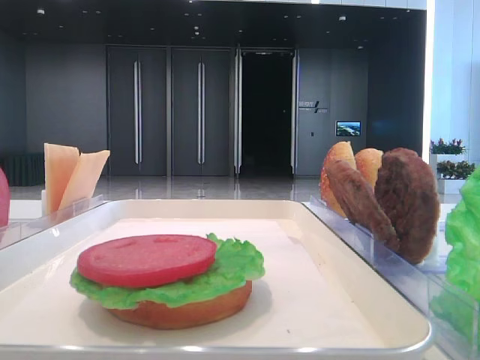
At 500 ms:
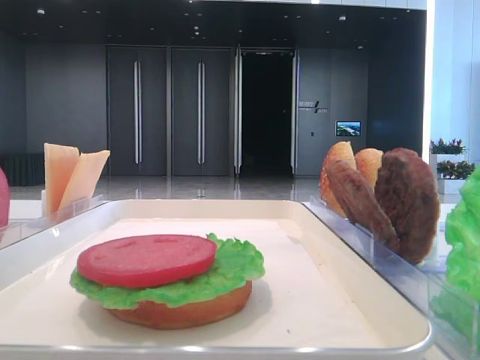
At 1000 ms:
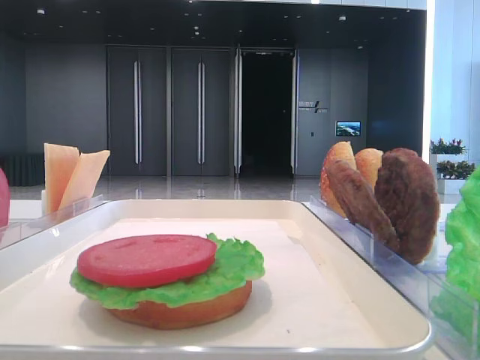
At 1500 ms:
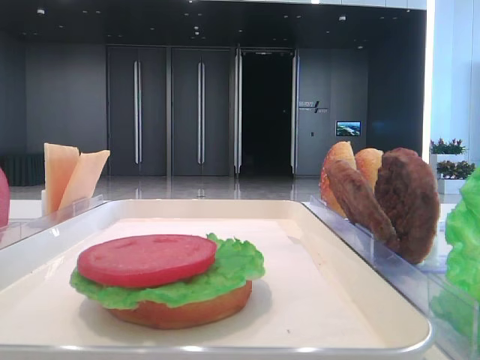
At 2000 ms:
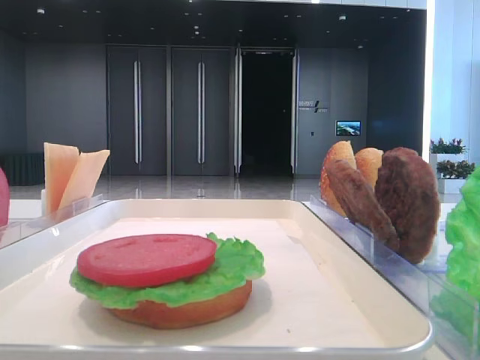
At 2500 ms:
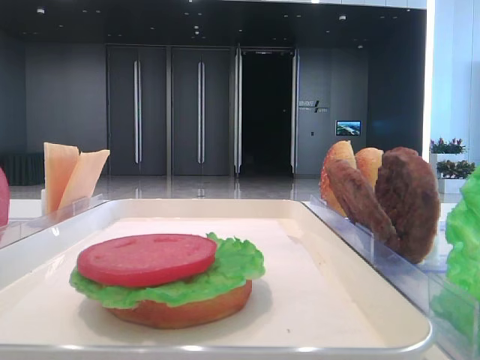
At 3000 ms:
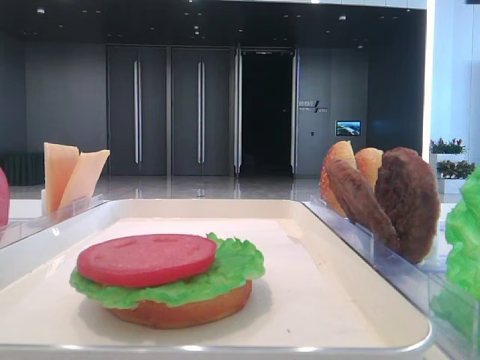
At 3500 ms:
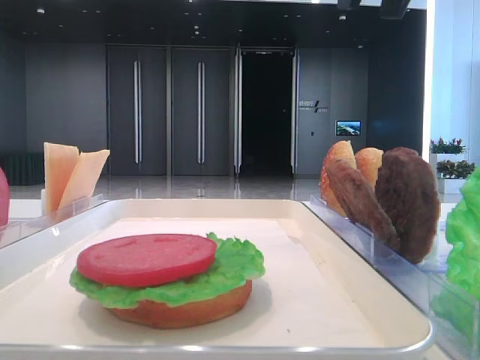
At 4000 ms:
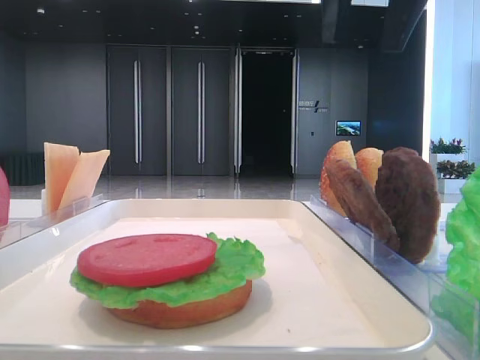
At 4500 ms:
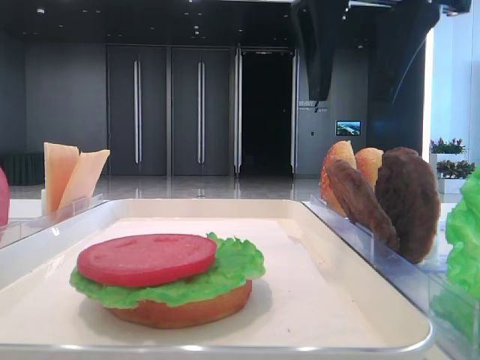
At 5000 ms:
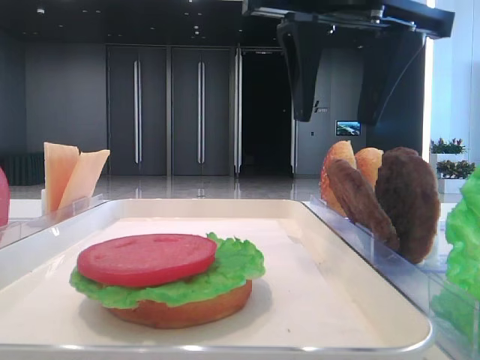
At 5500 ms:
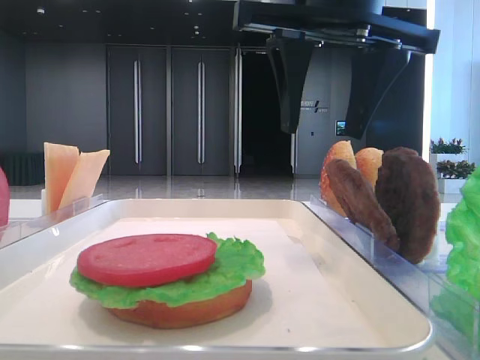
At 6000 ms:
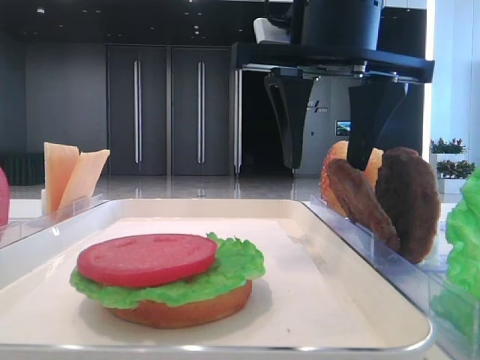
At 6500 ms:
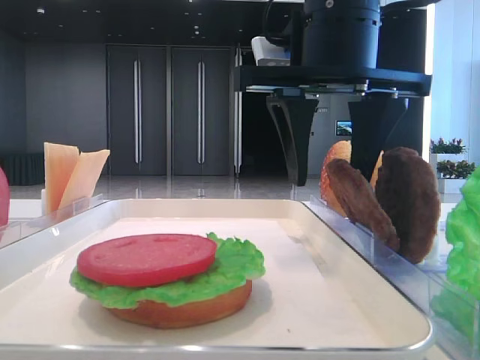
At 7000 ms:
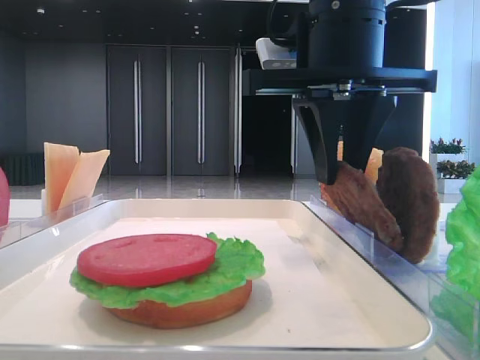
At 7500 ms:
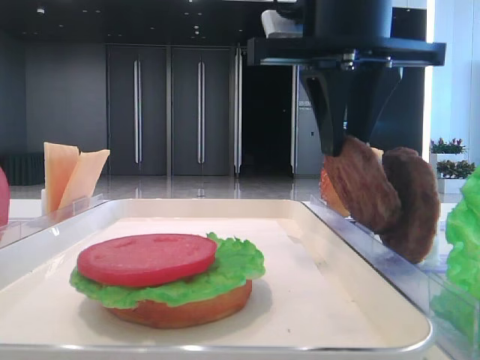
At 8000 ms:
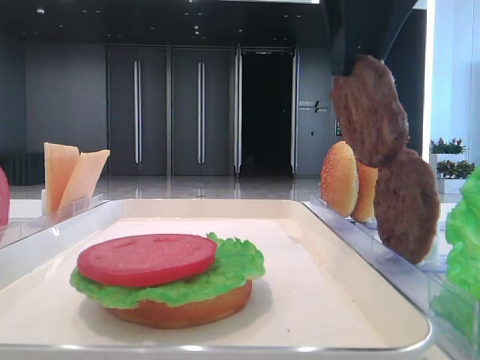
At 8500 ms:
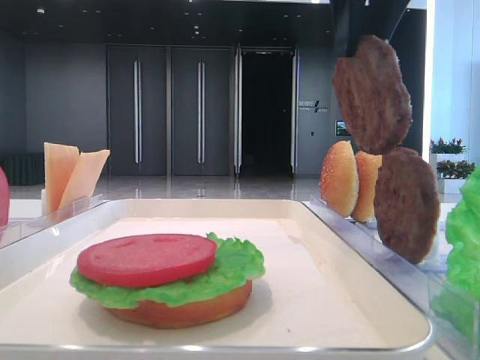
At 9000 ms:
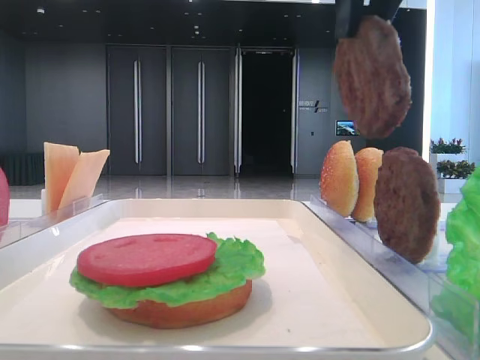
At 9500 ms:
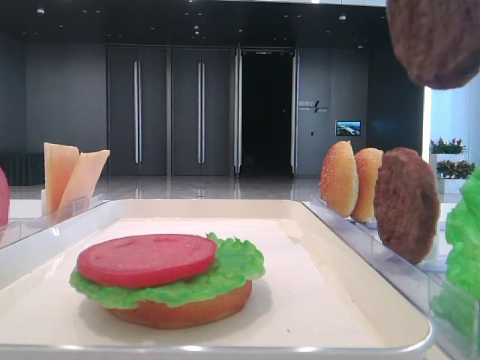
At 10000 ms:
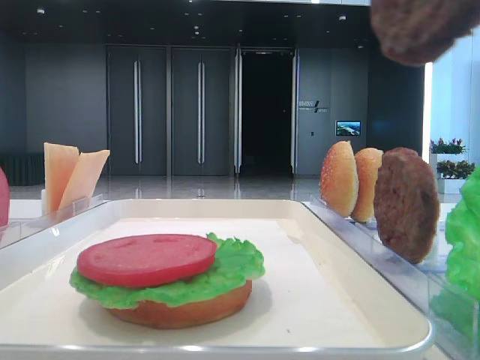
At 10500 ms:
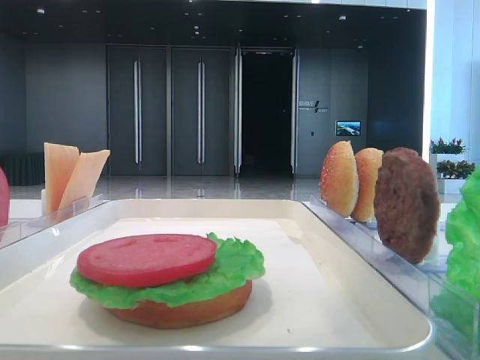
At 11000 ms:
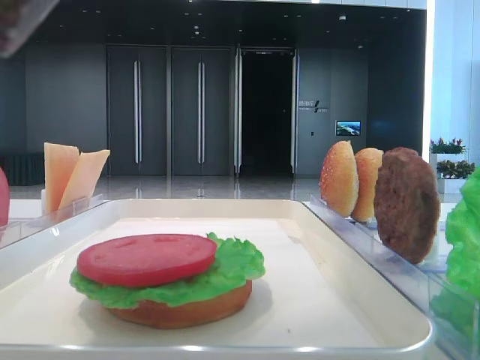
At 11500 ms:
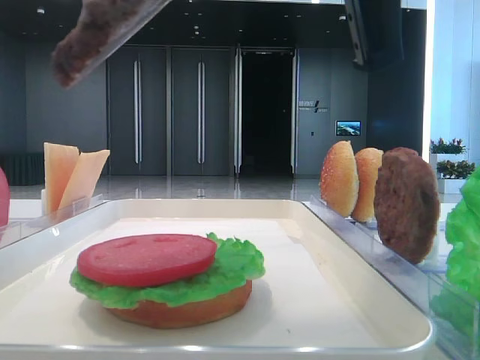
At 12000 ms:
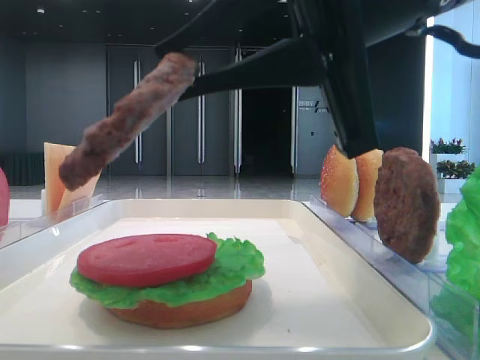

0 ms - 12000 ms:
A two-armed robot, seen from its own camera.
Step, 0 ms - 7000 ms: Grab the patty with the right hand.
4000 ms - 6000 ms: The right gripper travels downward by roughly 10 cm.
6000 ms - 8000 ms: The right gripper is displaced upward by about 5 cm, and closes up.
8000 ms - 10000 ms: The right gripper is displaced backward by roughly 15 cm.
10000 ms - 12000 ms: The right gripper shifts about 15 cm downward and forward.

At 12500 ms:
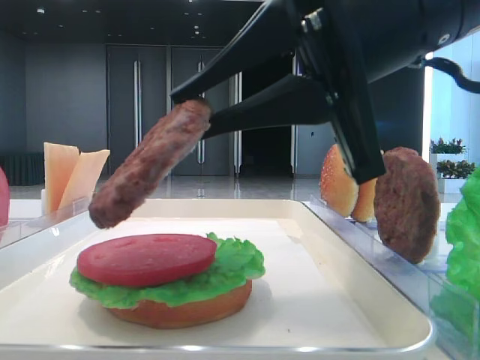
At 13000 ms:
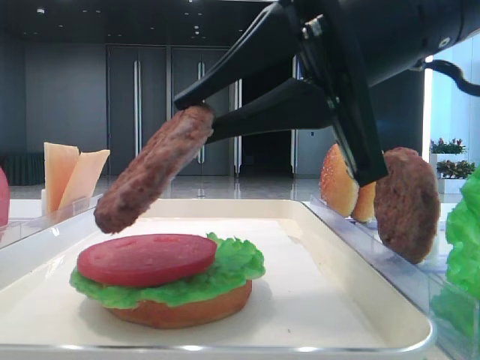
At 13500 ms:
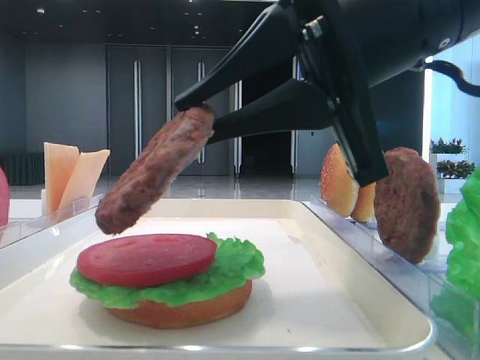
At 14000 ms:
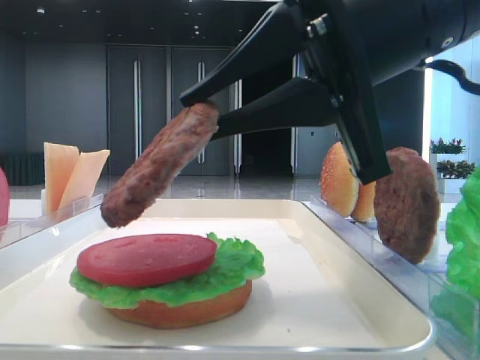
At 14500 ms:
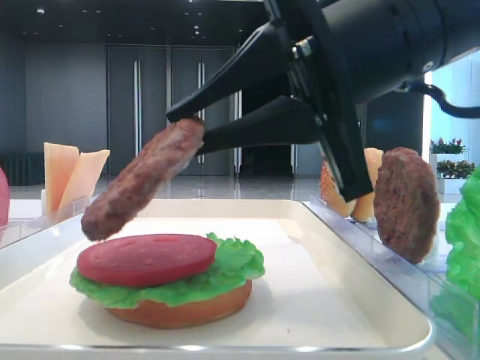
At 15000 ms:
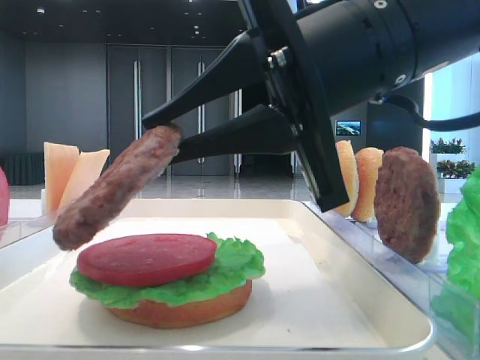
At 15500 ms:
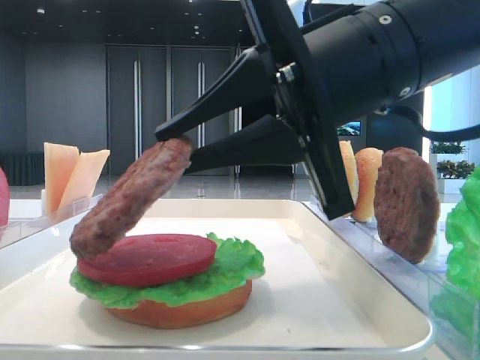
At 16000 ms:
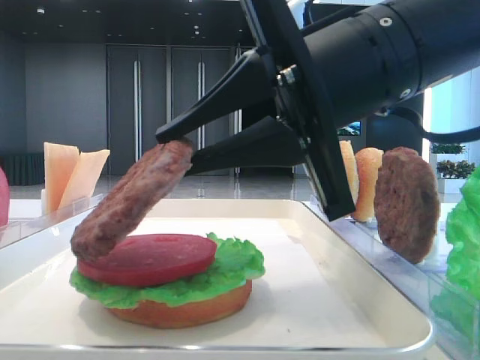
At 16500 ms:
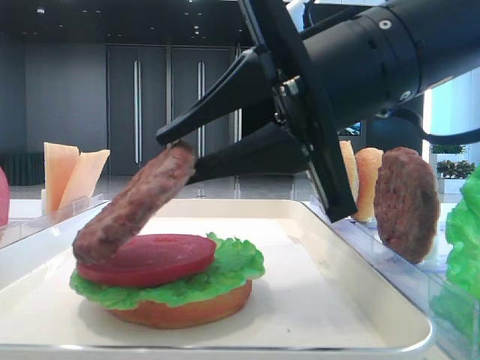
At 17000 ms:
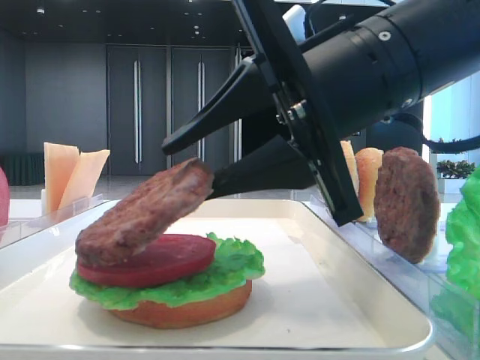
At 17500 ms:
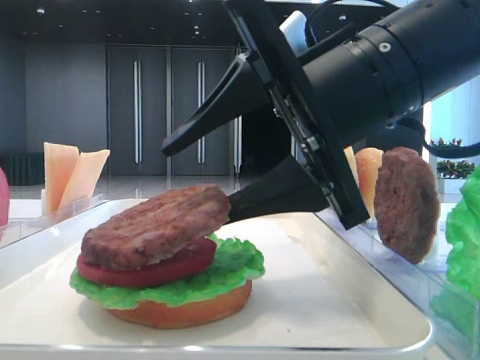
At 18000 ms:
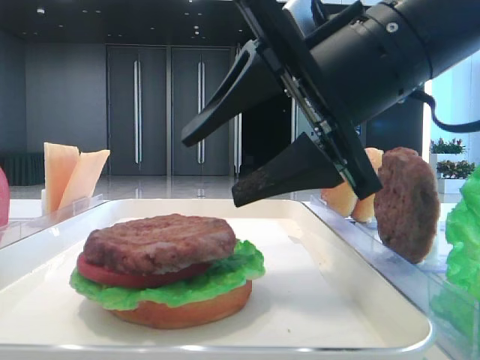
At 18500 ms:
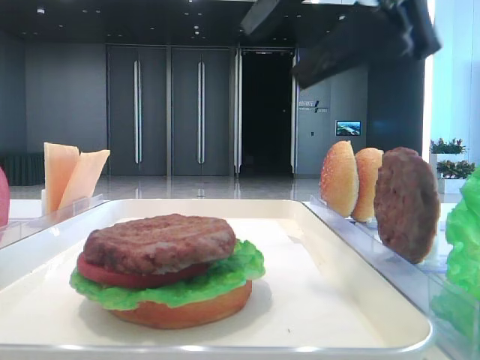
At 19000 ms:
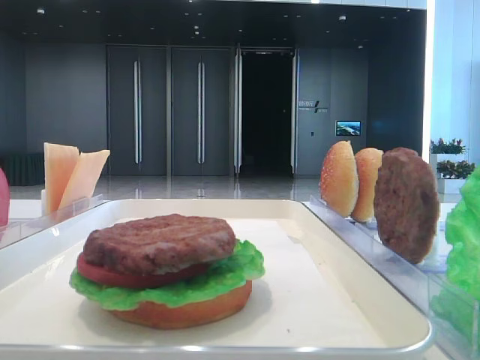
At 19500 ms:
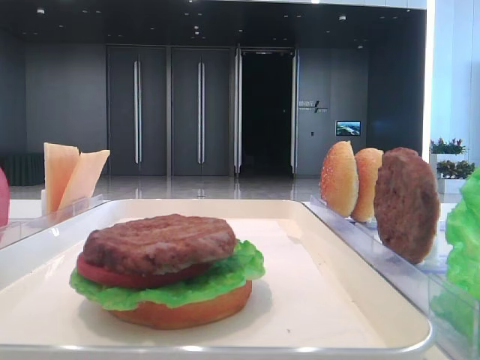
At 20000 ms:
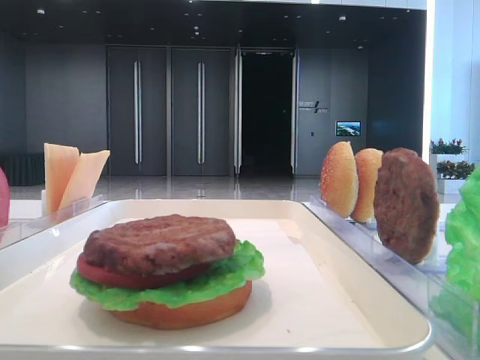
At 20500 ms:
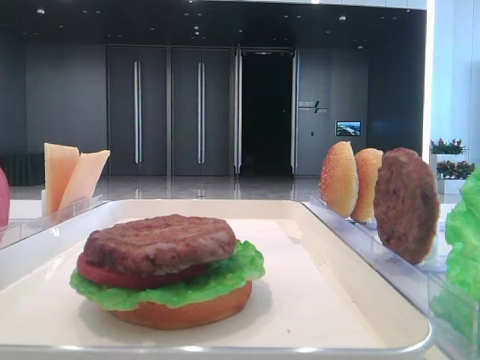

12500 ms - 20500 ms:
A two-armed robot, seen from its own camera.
Step, 12500 ms - 17500 ms: Place the patty on the tomato slice with the right hand.
12500 ms - 16500 ms: There are only small adjustments of the grippers.
16500 ms - 18500 ms: The right gripper heads upward, covering approximately 10 cm, and opens up.
18500 ms - 20500 ms: The right gripper is displaced backward and to the right by some 30 cm.

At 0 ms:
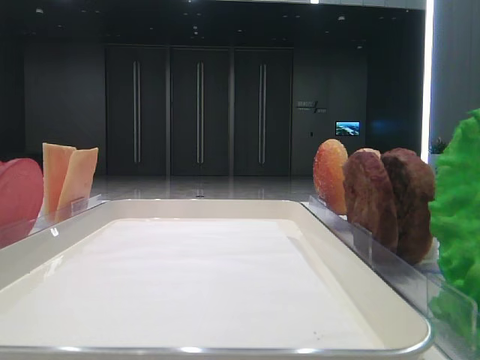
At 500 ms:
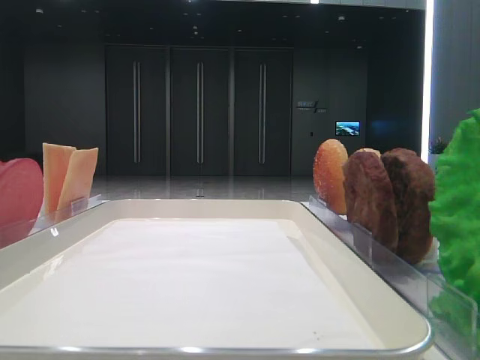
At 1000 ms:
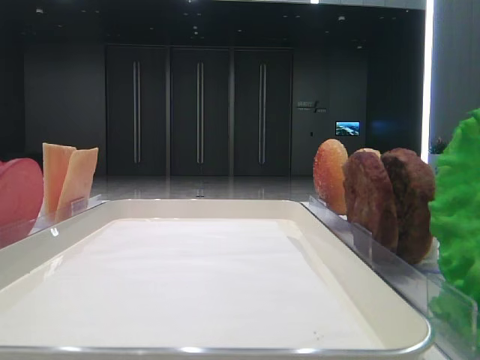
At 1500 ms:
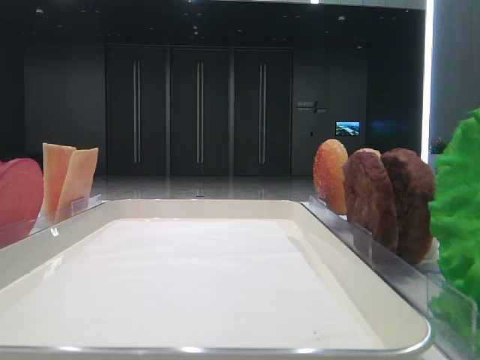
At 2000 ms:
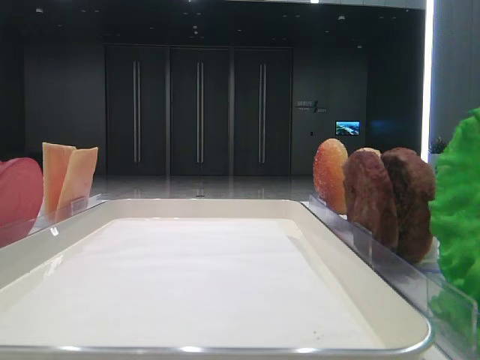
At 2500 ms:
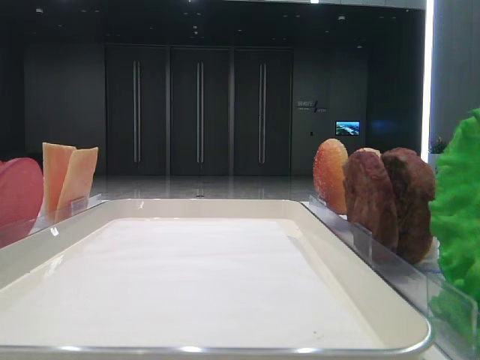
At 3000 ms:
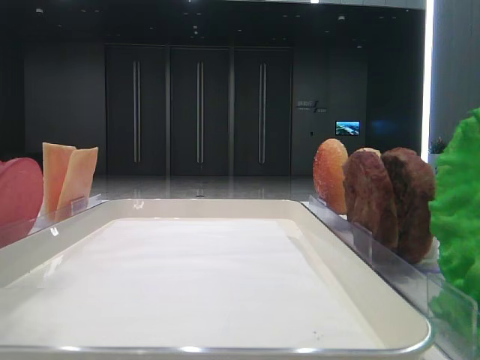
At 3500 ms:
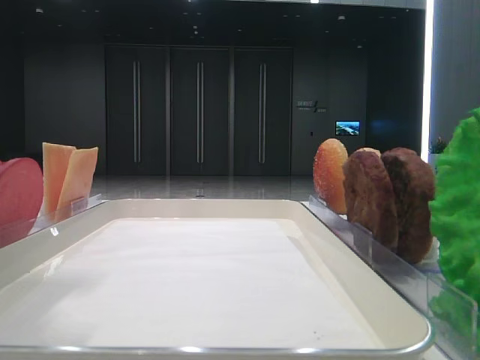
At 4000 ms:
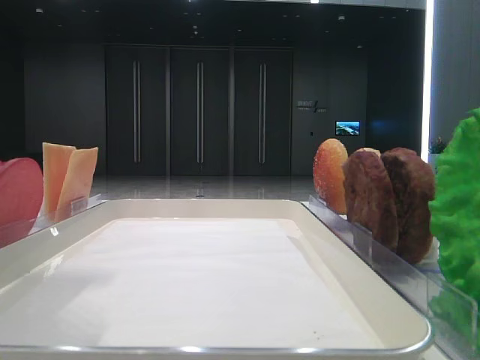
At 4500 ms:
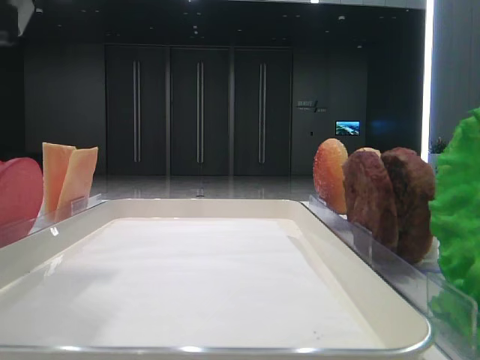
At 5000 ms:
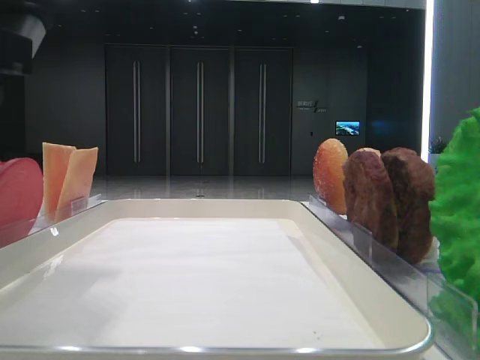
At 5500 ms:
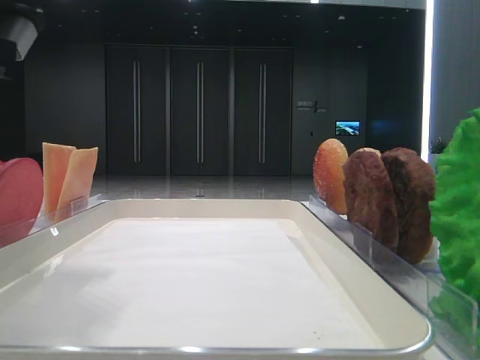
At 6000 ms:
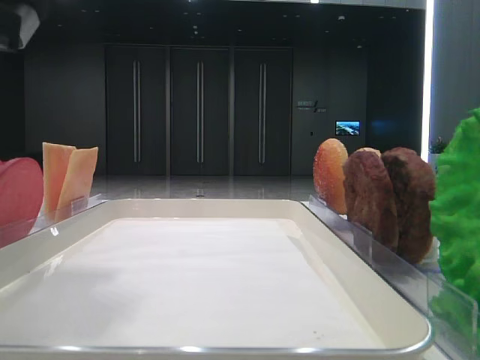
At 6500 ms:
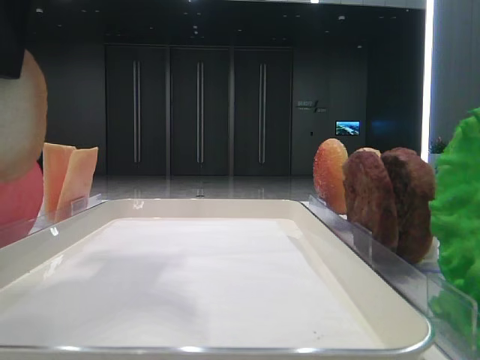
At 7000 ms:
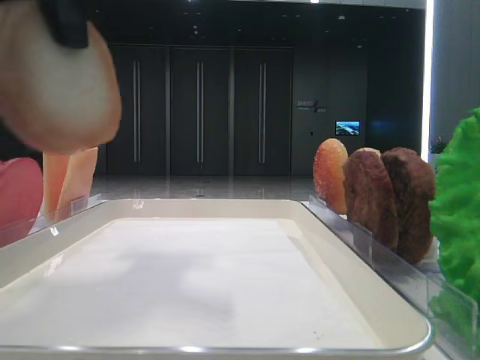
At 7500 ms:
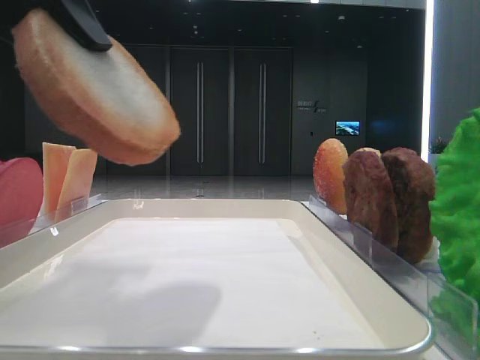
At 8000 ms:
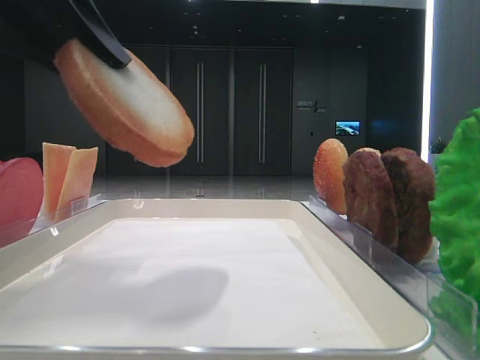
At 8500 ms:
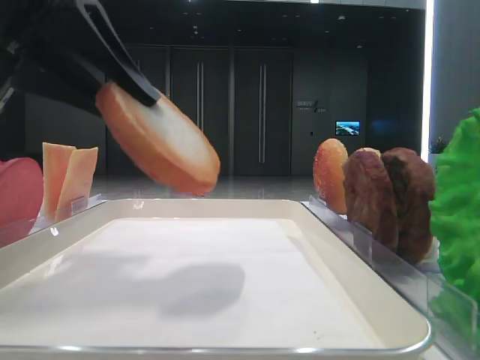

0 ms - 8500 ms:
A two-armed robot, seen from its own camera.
2000 ms - 4000 ms: The left gripper heads to the right and downward, covering roughly 15 cm.
4000 ms - 6500 ms: The left gripper moves some 5 cm, and closes its fingers.
6500 ms - 8500 ms: The left gripper is displaced downward by approximately 5 cm.
